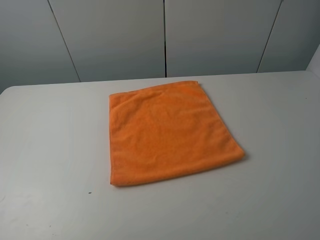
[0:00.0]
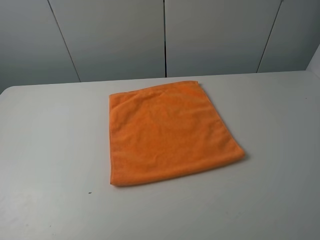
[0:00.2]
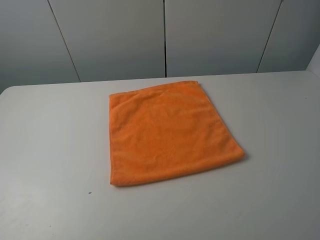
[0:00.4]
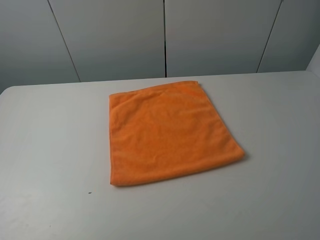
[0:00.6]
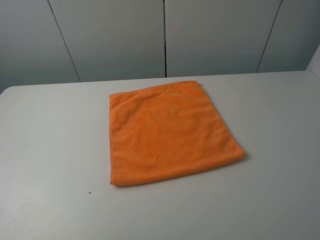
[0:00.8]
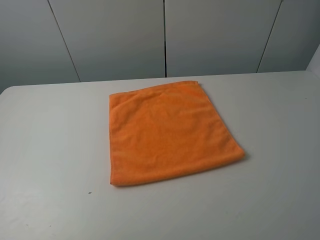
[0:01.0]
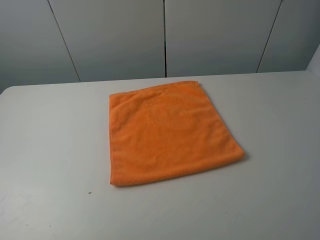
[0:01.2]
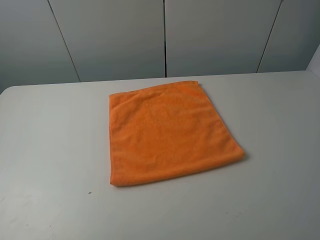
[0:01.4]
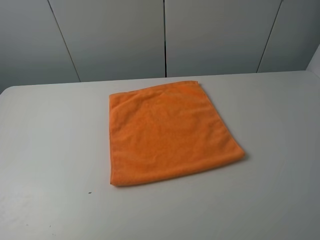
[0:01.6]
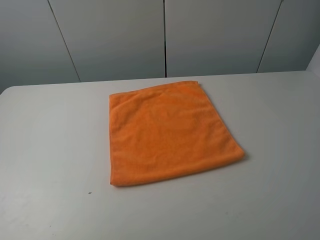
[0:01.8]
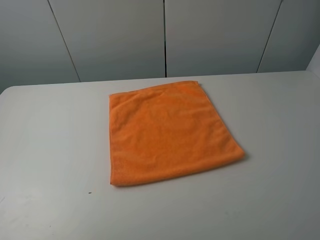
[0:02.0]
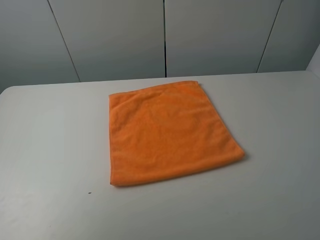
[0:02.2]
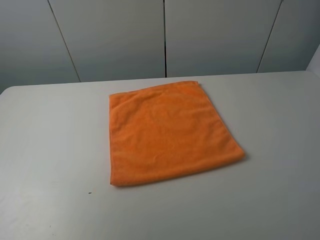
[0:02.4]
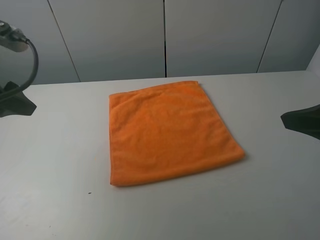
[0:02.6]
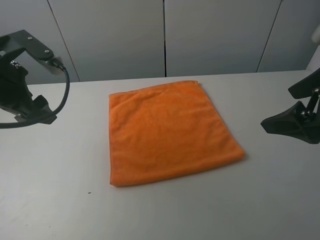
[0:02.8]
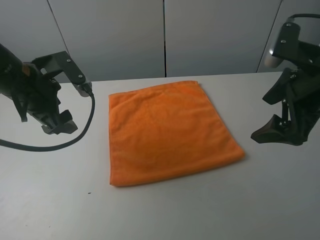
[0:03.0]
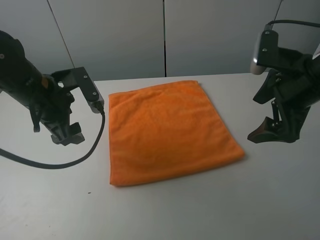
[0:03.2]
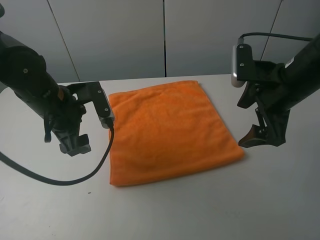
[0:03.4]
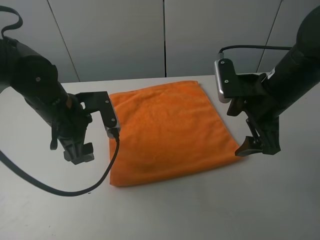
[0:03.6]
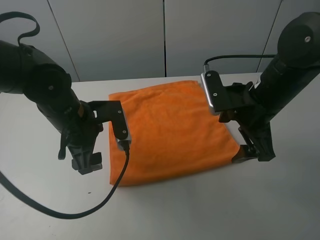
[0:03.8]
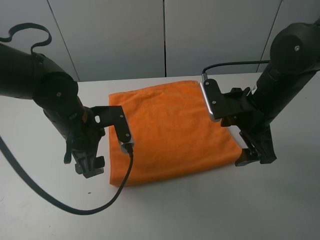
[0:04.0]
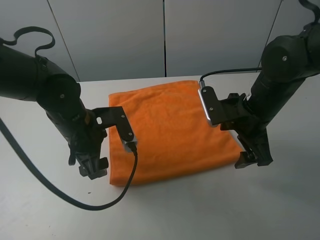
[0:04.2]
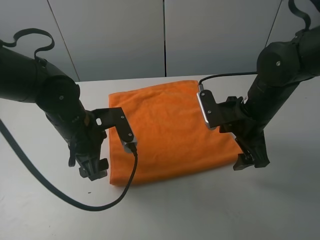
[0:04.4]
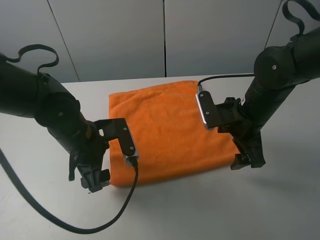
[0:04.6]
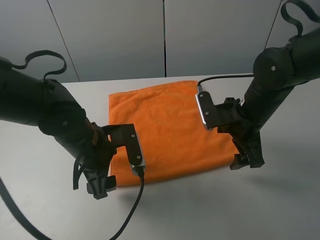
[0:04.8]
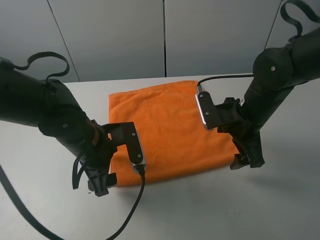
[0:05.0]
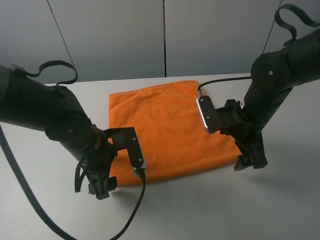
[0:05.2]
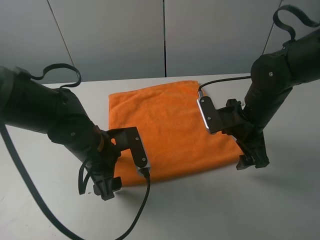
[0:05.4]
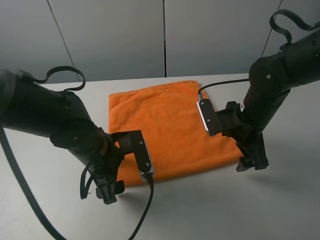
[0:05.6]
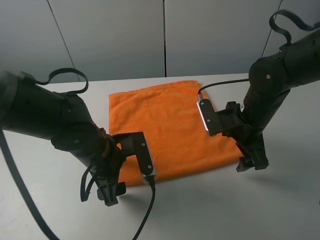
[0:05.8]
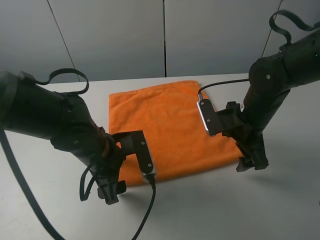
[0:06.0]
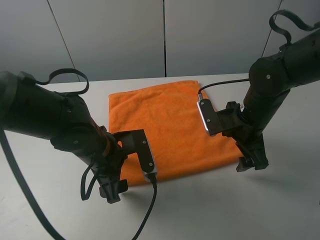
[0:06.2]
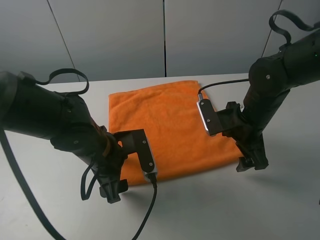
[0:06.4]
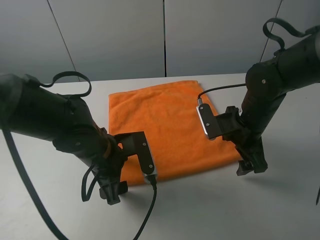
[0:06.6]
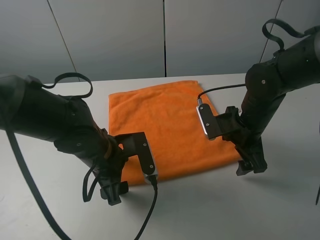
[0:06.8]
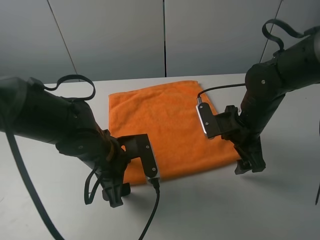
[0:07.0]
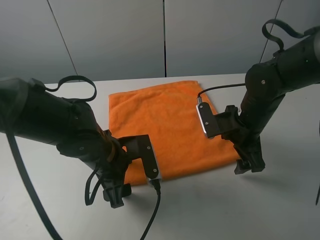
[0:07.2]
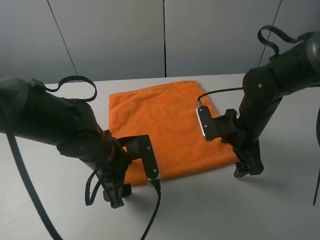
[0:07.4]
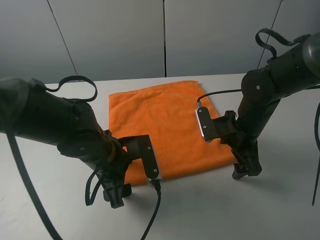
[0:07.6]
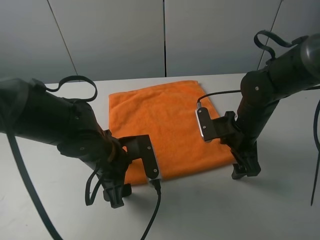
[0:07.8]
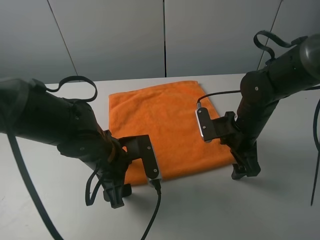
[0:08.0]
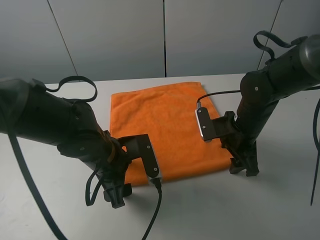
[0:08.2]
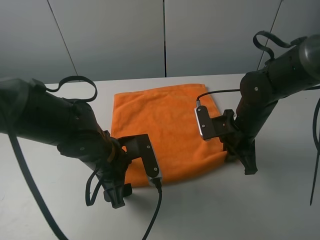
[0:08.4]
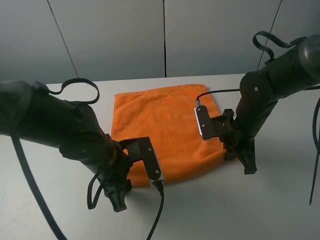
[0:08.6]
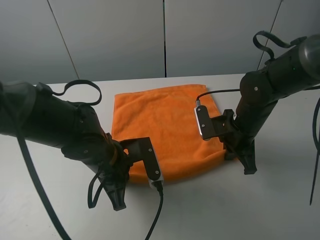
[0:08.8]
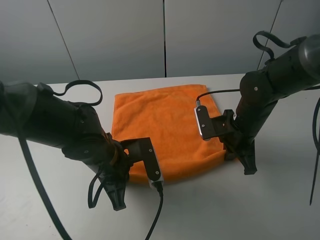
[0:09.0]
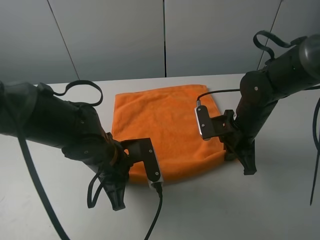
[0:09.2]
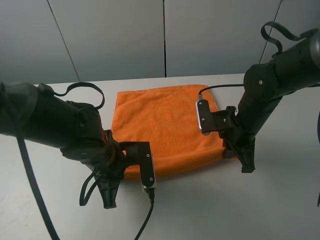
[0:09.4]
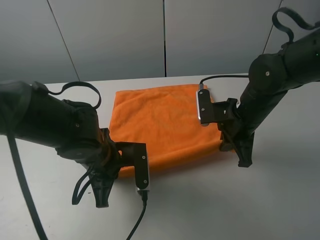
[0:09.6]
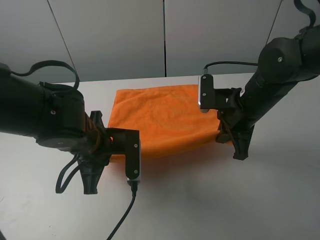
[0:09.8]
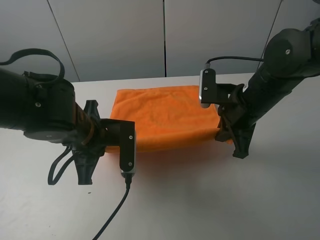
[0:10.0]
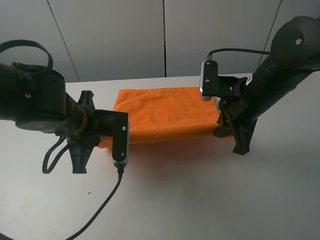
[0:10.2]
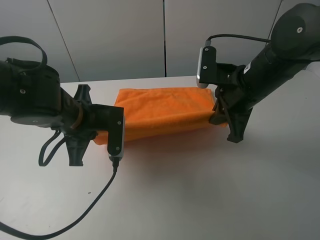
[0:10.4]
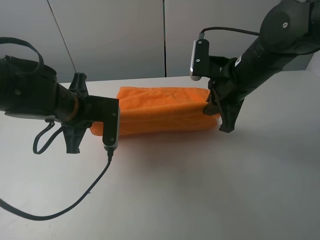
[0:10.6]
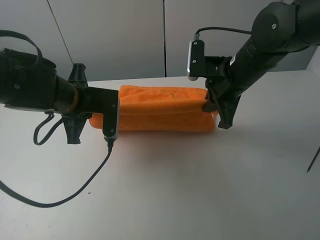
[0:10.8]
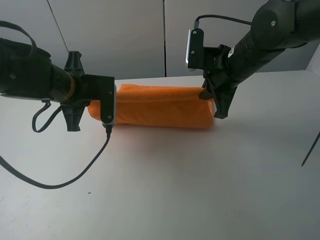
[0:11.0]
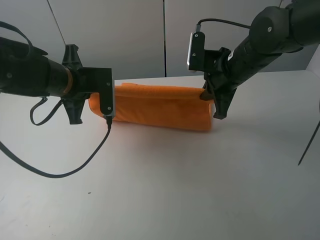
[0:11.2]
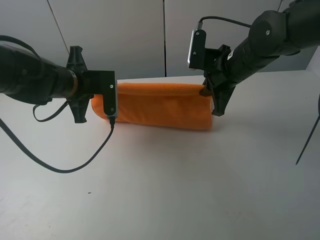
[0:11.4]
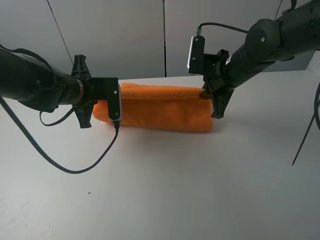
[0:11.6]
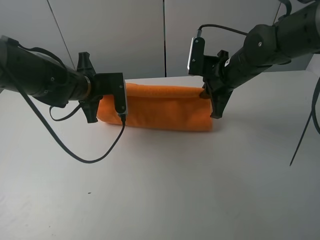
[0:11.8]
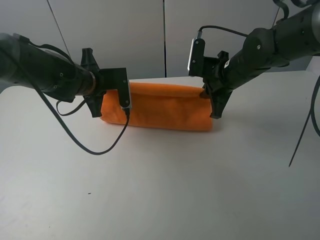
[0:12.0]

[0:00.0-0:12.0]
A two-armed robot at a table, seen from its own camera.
Task of the whole recording: fold the towels on the table.
Step, 0:00.0 to 0:09.2: Grasp the orange towel with the left gripper.
0:01.6 to 0:03.0: Both grippers travel together forward, about 25 cm.
0:03.0 to 0:04.4: The right gripper moves downward and to the left, approximately 10 cm. The left gripper moves downward and to the right, about 10 cm.
0:04.4 to 0:06.0: The left gripper ends up about 5 cm from where it was.
0:06.0 to 0:07.6: The grippers move only a little.
0:07.6 to 0:09.0: The left gripper closes its fingers. The right gripper closes.
0:09.0 to 0:10.4: The right gripper travels upward by some 10 cm. Meanwhile the left gripper heads upward and to the left, covering some 10 cm.
0:10.4 to 0:12.0: The grippers both shift forward by some 10 cm.

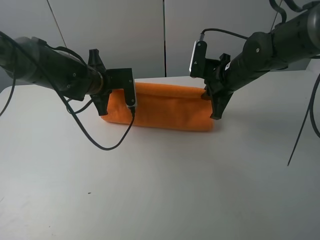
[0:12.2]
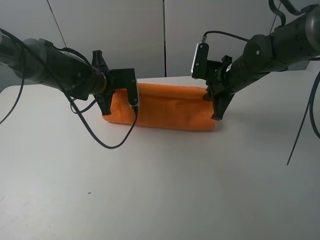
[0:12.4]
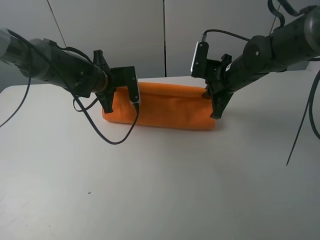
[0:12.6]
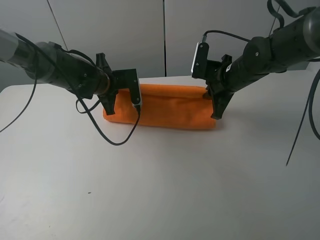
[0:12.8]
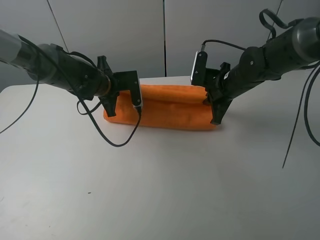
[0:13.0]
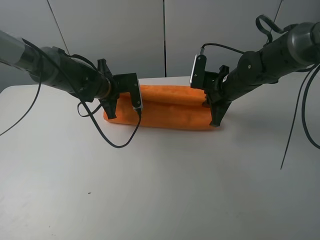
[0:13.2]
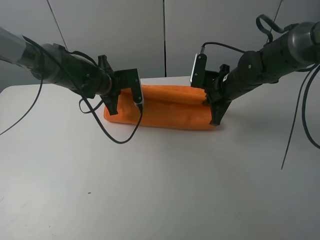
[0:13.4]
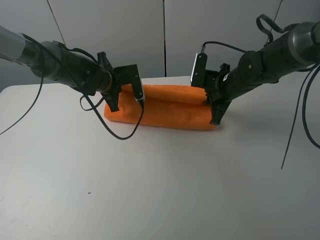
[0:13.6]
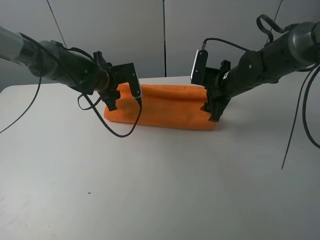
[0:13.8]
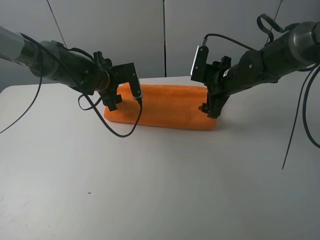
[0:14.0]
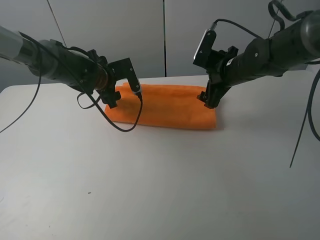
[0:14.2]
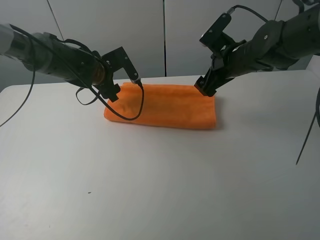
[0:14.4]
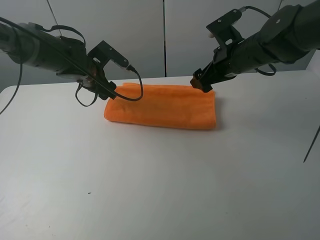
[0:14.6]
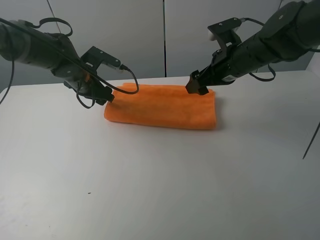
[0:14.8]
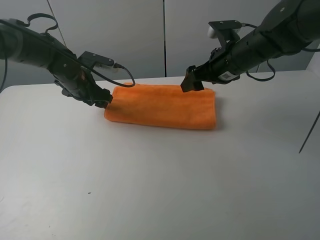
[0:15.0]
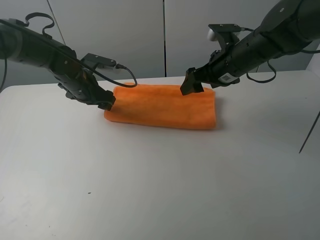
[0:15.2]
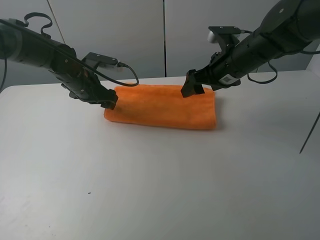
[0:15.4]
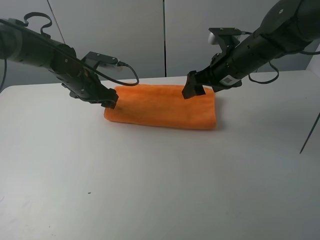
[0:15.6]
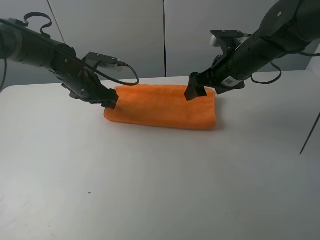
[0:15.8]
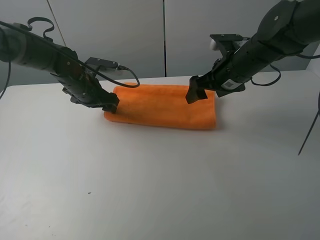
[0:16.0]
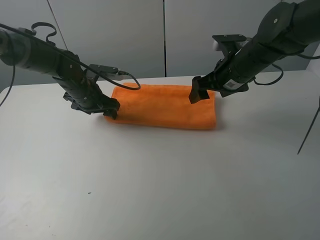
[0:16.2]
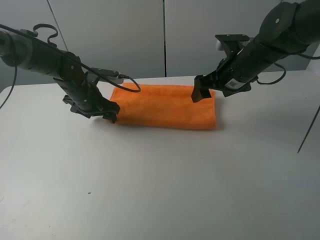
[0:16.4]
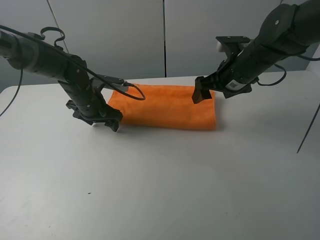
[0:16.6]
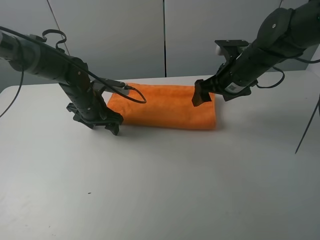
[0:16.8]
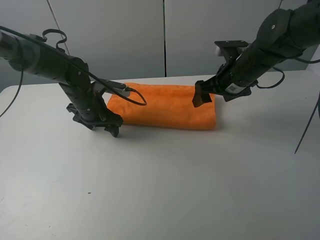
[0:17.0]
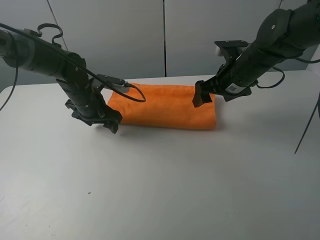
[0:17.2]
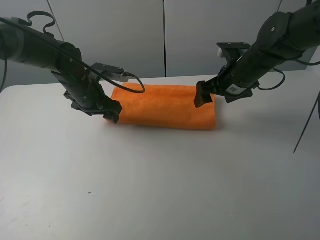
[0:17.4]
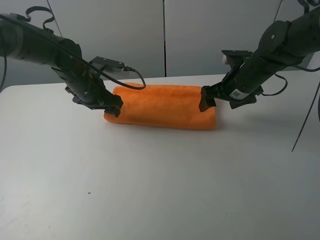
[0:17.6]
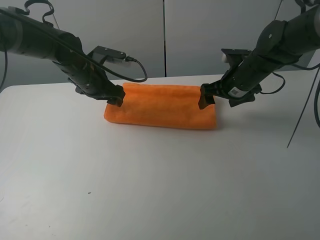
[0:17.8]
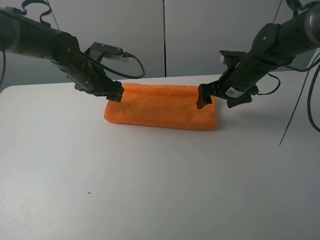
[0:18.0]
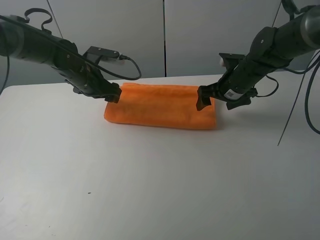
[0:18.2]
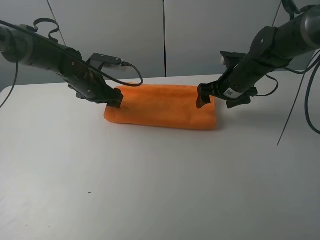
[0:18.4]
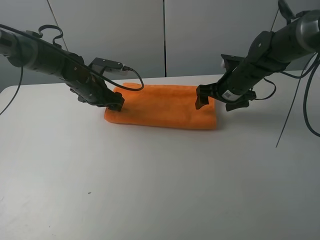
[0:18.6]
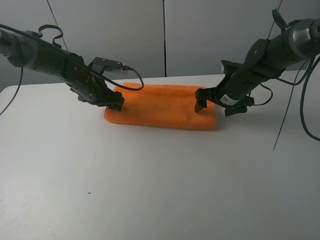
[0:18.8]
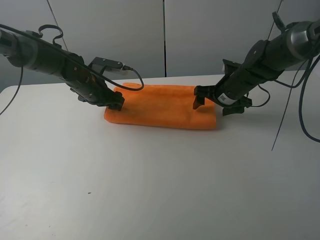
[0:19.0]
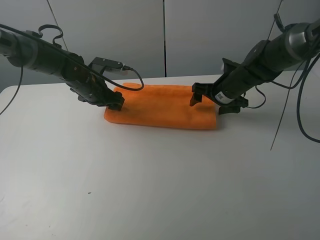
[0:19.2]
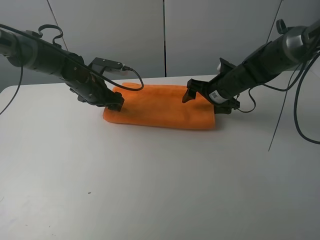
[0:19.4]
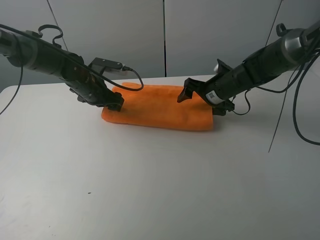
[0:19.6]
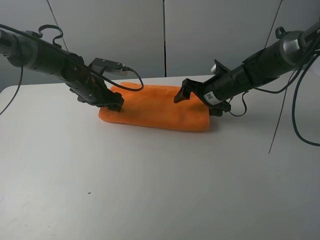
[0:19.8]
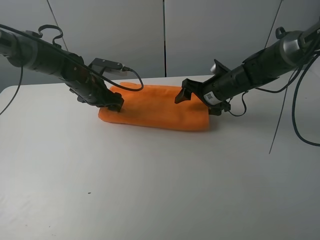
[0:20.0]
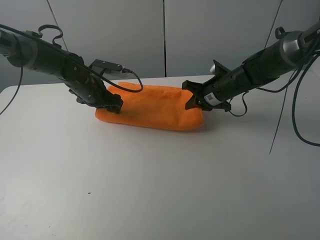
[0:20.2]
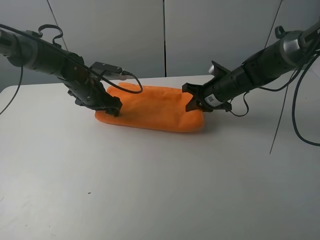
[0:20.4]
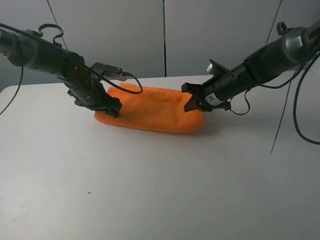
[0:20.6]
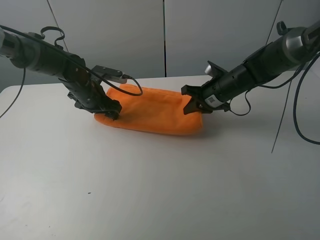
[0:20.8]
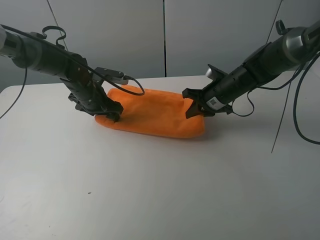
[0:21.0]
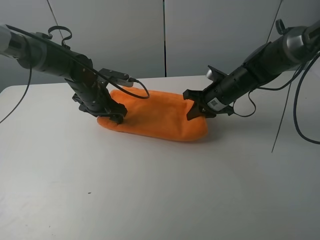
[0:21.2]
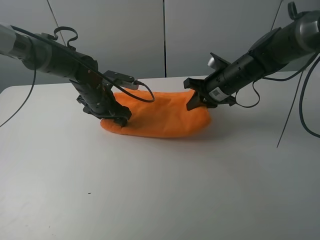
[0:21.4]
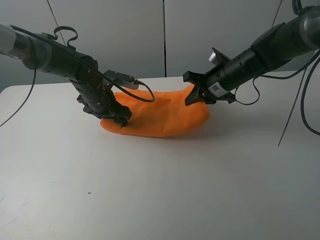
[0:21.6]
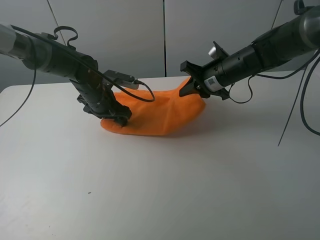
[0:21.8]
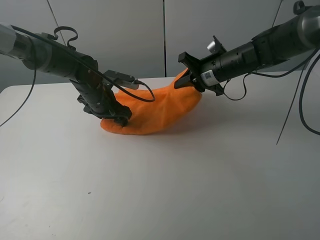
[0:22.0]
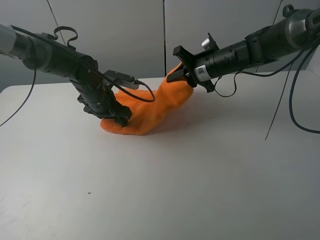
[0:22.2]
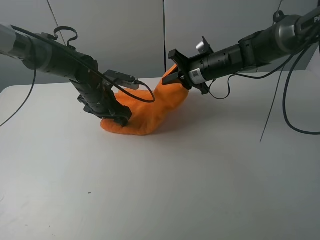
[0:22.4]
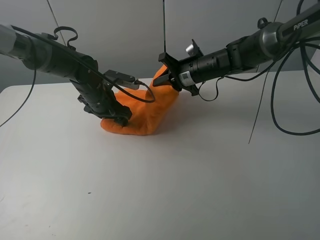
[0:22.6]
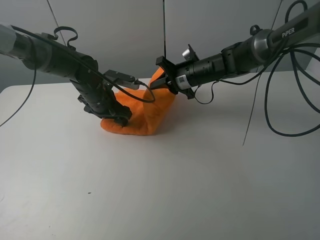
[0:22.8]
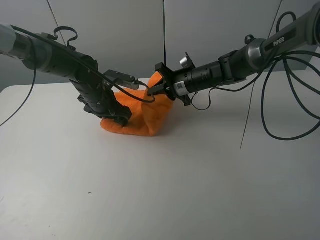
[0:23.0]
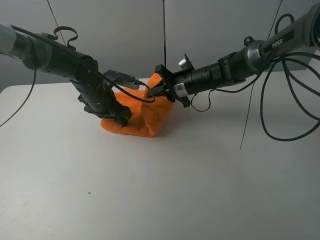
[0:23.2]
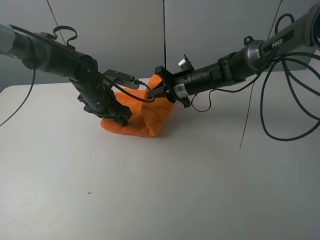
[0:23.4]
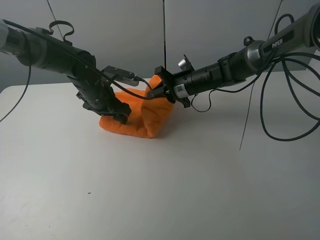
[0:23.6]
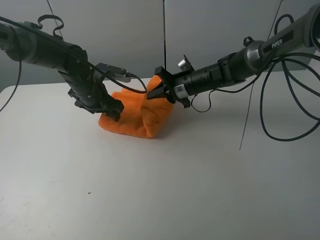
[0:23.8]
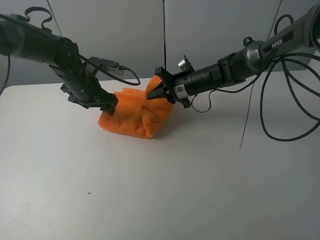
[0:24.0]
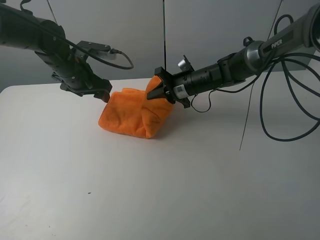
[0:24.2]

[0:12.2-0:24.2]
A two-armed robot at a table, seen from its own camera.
Task of the whole recording: fold the towels on the table.
Step, 0:12.2 to 0:14.4: Fold the orange towel upwards with the right gripper.
Step, 0:14.6 to 0:18.8: Press on the orange towel with the left gripper.
0:12.2 to 0:13.8: The right gripper opens, while the left gripper opens its fingers.
0:13.8 to 0:15.2: The right gripper is displaced upward by approximately 5 cm. The left gripper moves to the left, roughly 5 cm.
0:15.2 to 0:16.6: The grippers make only small movements.
0:16.6 to 0:18.2: The right gripper ends up about 5 cm from where it was.
0:19.8 to 0:21.2: The right gripper closes up.
0:21.2 to 0:22.6: The right gripper heads to the left, covering roughly 5 cm.
0:22.6 to 0:24.2: The left gripper is displaced upward and to the left by approximately 10 cm.
